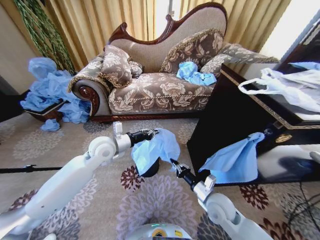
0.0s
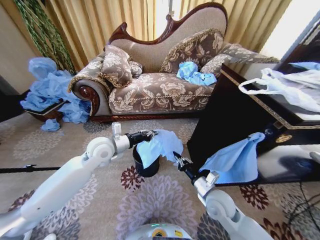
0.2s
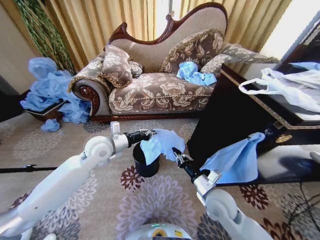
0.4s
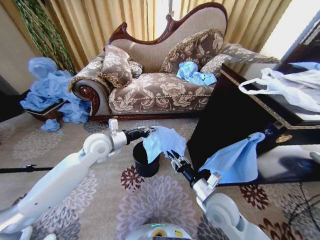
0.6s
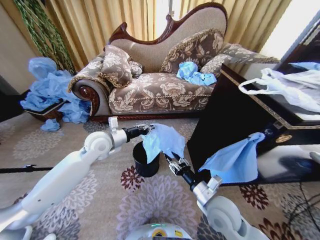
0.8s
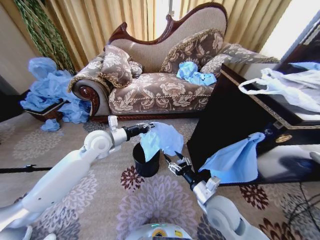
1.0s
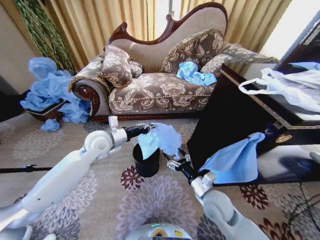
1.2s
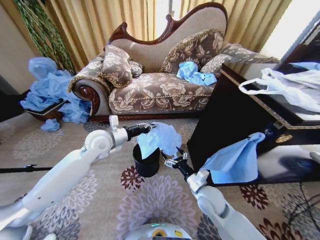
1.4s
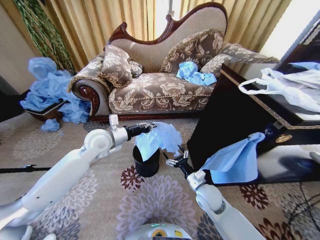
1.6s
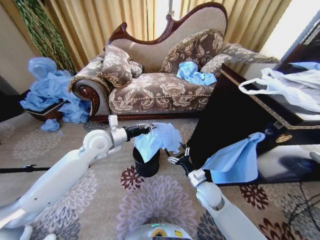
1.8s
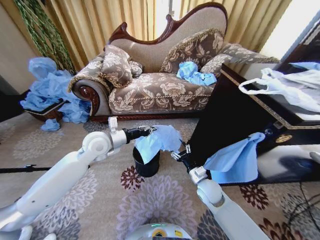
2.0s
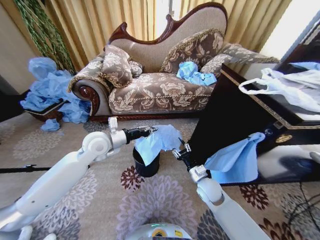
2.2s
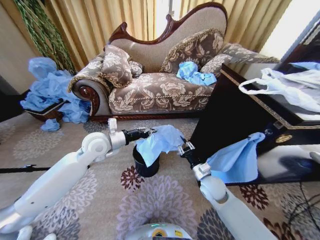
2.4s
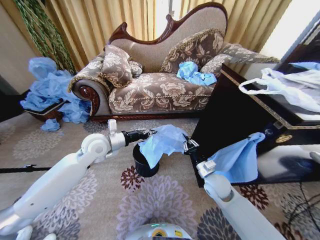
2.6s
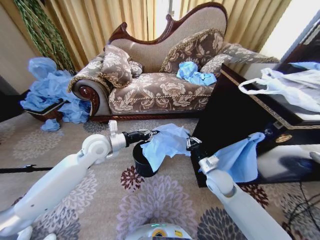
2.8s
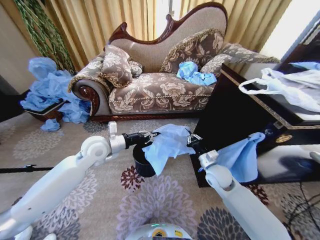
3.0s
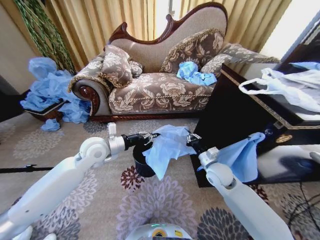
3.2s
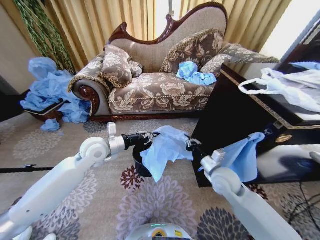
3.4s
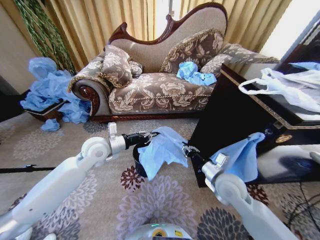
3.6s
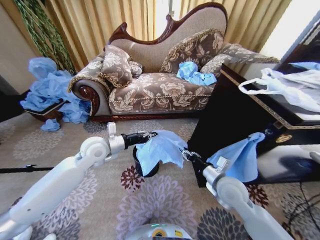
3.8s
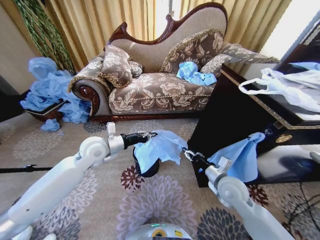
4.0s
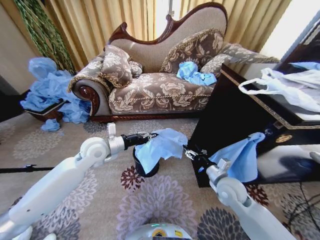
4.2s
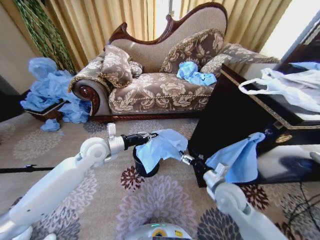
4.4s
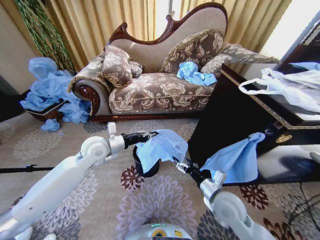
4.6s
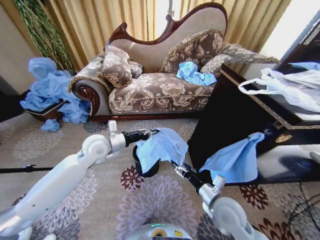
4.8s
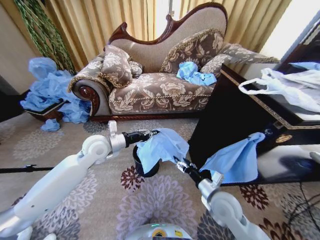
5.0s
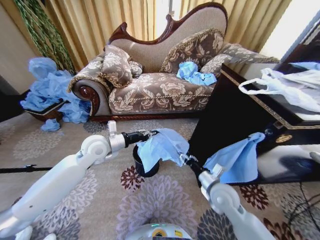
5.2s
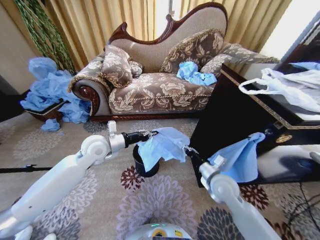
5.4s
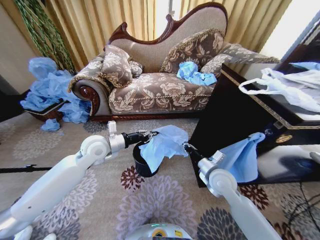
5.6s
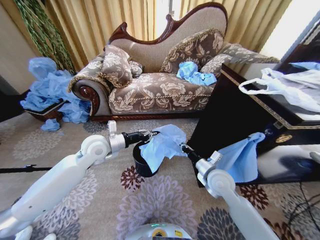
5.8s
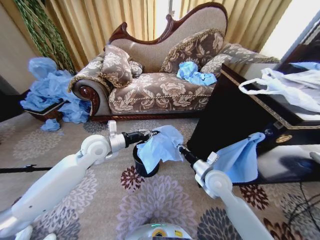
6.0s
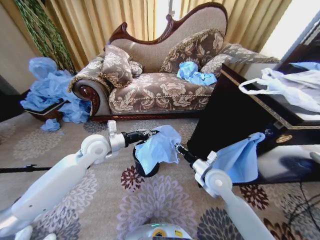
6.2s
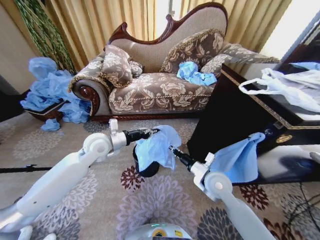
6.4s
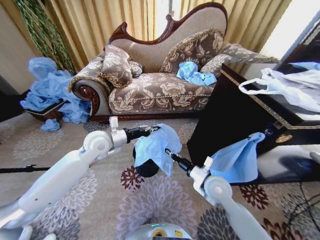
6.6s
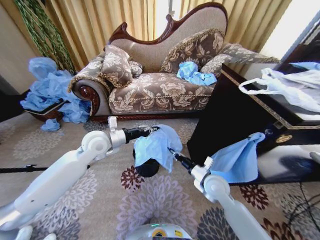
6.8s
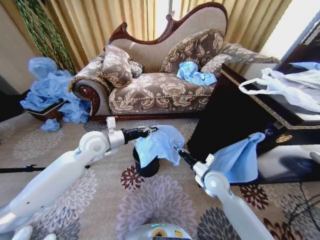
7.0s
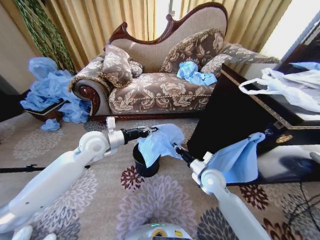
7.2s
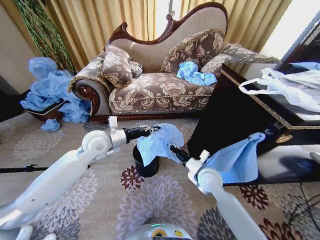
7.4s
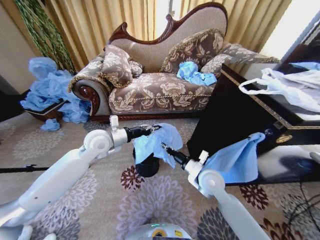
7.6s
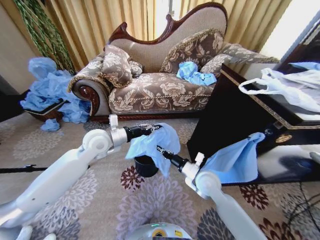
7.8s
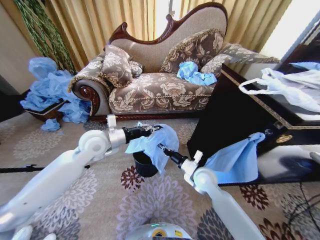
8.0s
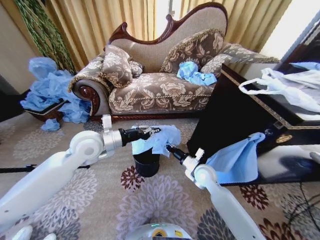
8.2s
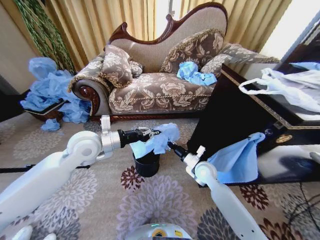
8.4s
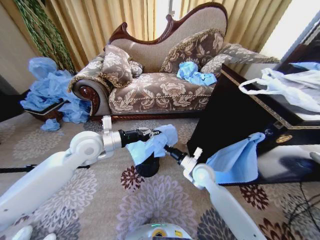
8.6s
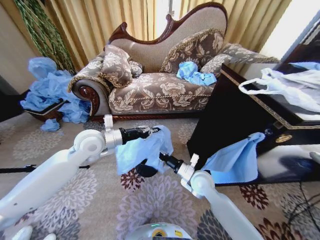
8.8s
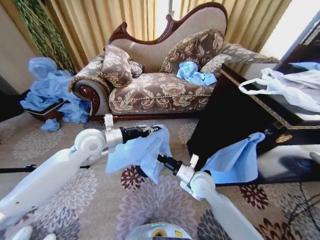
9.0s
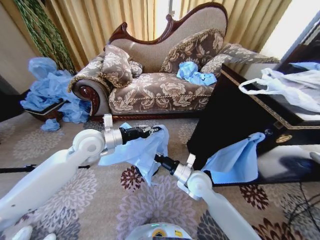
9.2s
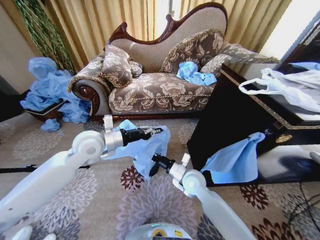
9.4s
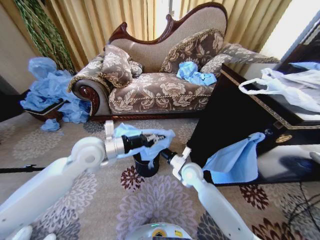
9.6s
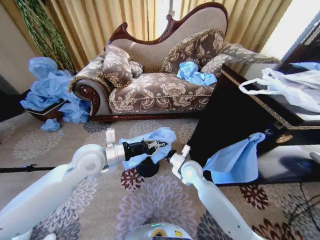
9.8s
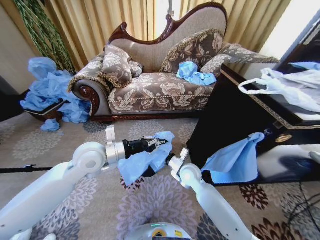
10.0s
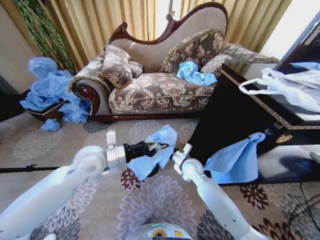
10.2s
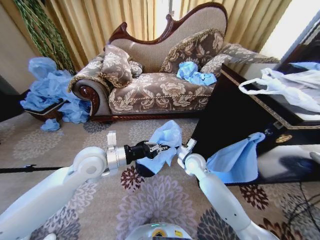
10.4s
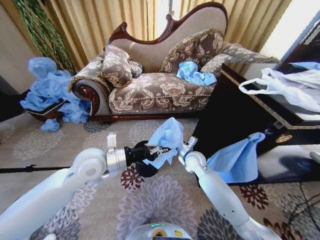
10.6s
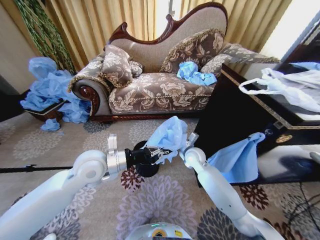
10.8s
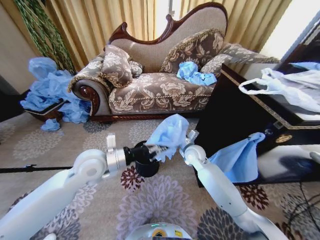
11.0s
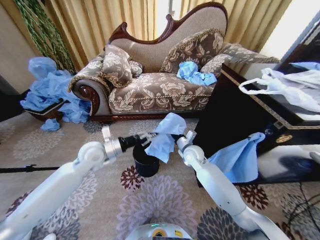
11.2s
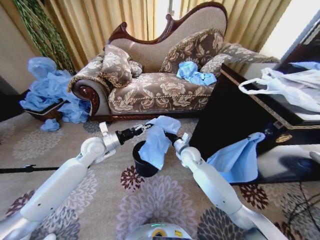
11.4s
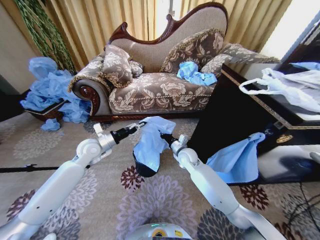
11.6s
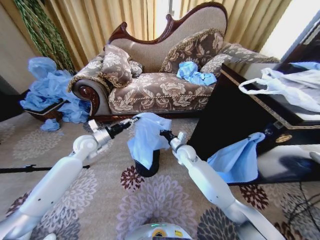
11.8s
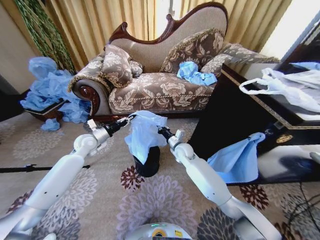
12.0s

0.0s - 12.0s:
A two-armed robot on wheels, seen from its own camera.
Task of the whole recording: Place a garbage bag over the trash bin.
0.0s - 1.6s: The right gripper opens up.
1.6s - 3.0s: The right gripper moves forward and upward, about 10 cm, and closes its fingers.
3.0s - 4.4s: The right gripper heads backward, covering roughly 10 cm, and opens up.
4.4s - 6.0s: The right gripper moves about 5 cm, and closes its fingers.
6.0s - 7.6s: The grippers make only small movements.
9.0s - 10.4s: The left gripper goes some 5 cm backward; the right gripper shifts about 10 cm forward.
10.4s - 12.0s: The right gripper heads forward, covering approximately 5 cm. Meanwhile the left gripper is displaced forward, to the left and downward by approximately 20 cm.

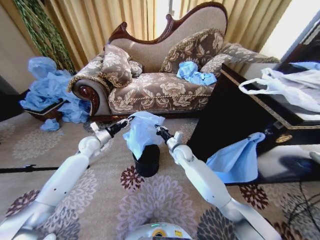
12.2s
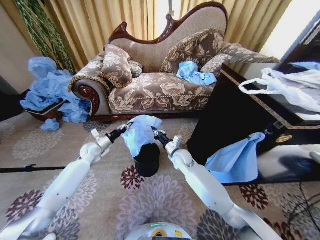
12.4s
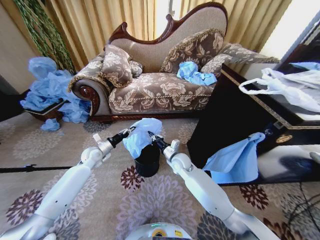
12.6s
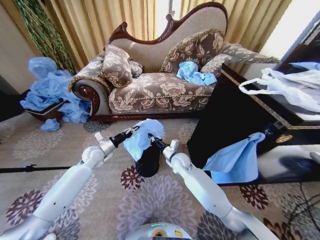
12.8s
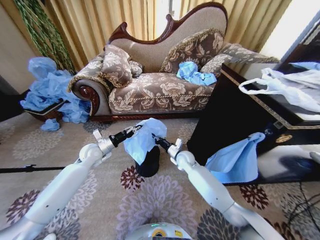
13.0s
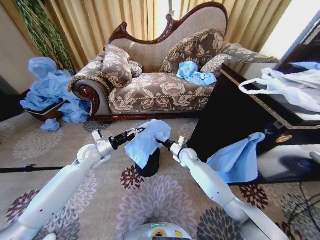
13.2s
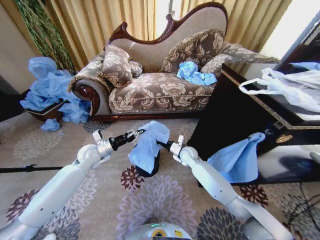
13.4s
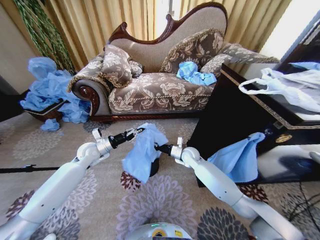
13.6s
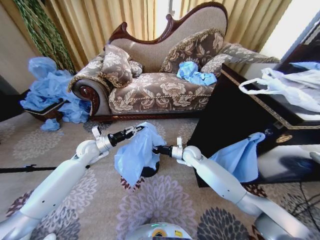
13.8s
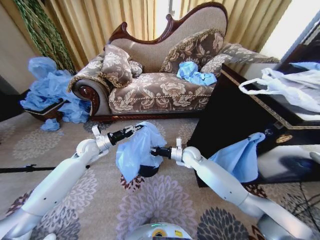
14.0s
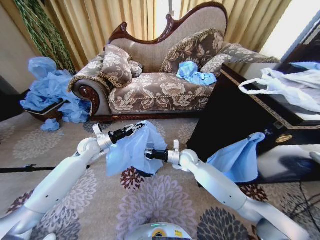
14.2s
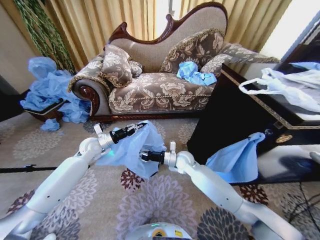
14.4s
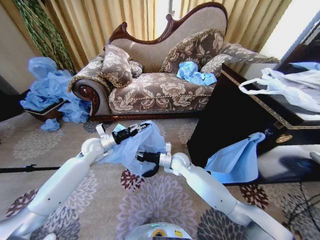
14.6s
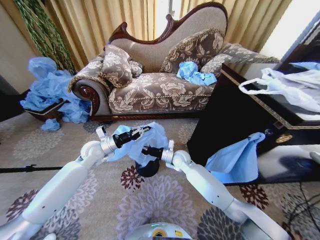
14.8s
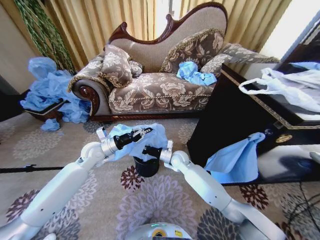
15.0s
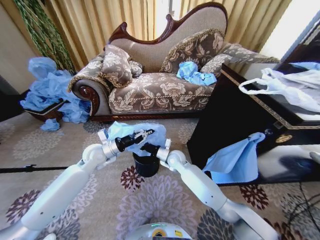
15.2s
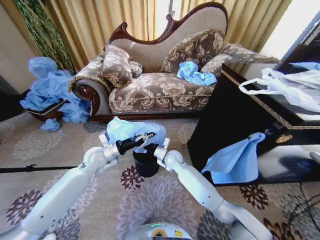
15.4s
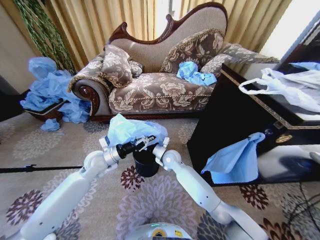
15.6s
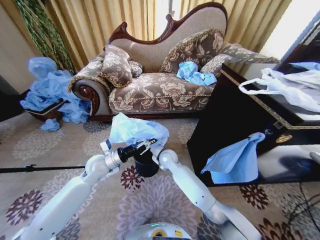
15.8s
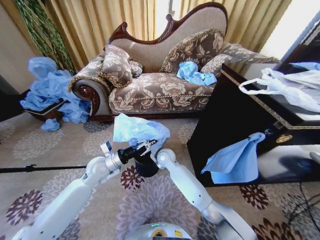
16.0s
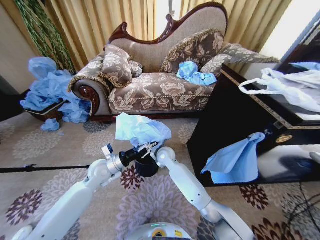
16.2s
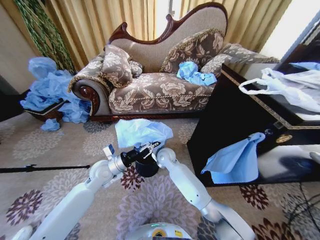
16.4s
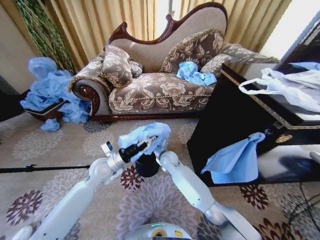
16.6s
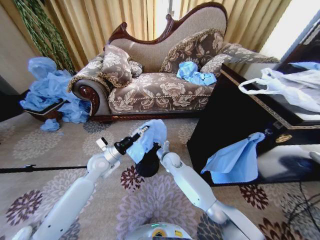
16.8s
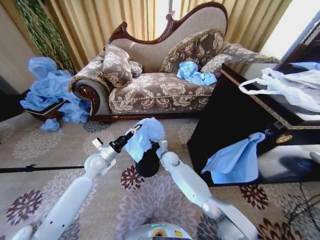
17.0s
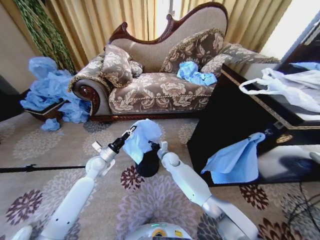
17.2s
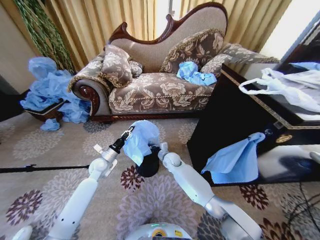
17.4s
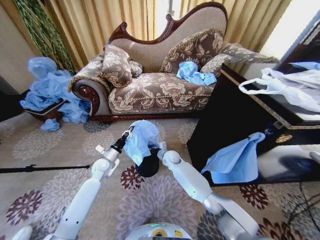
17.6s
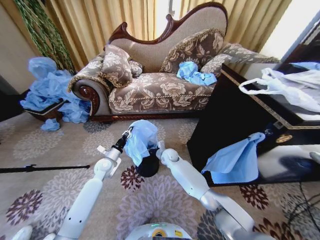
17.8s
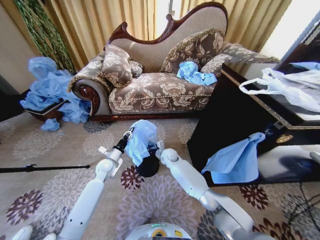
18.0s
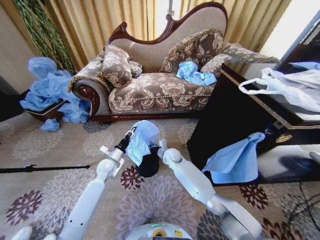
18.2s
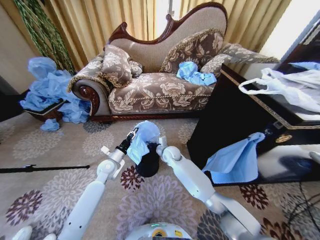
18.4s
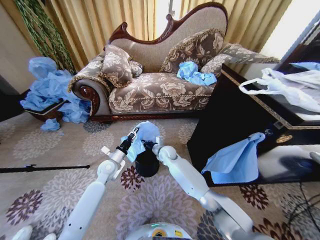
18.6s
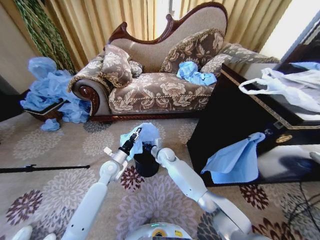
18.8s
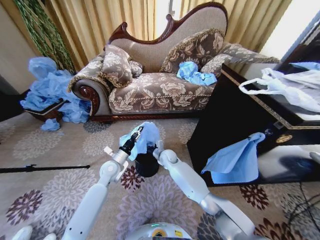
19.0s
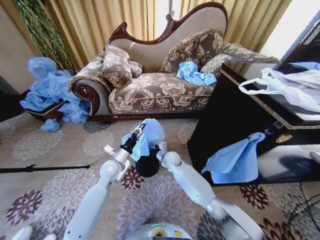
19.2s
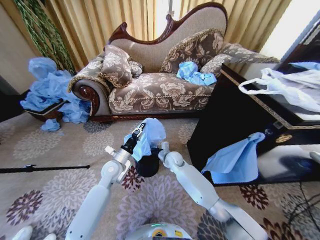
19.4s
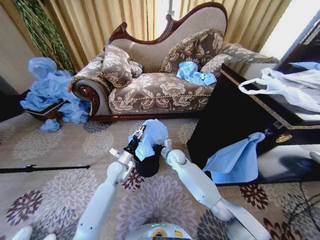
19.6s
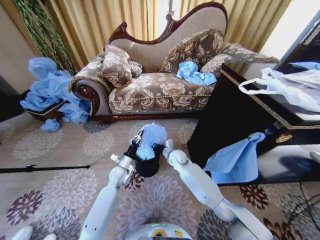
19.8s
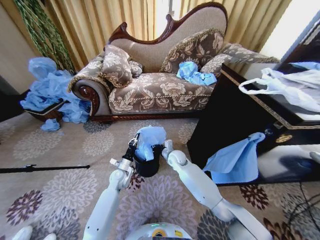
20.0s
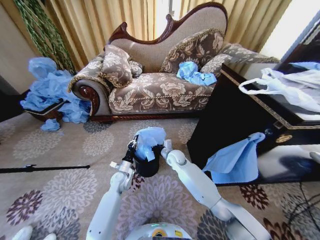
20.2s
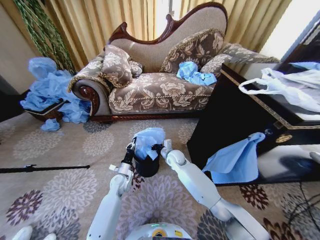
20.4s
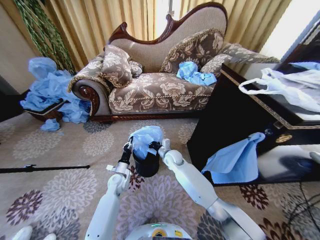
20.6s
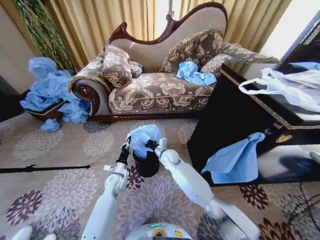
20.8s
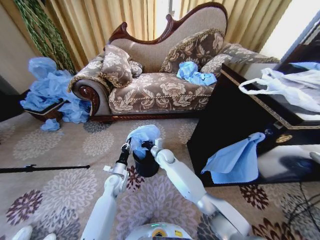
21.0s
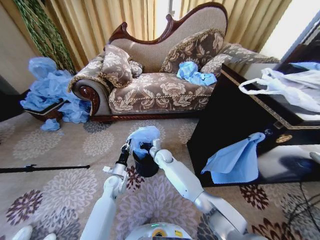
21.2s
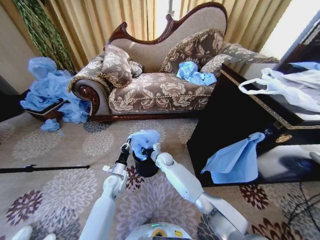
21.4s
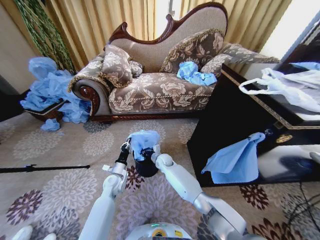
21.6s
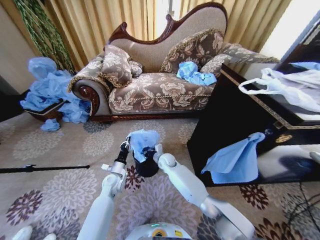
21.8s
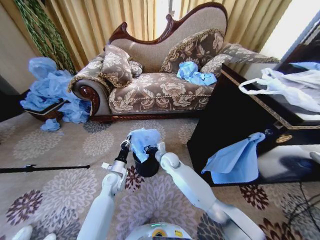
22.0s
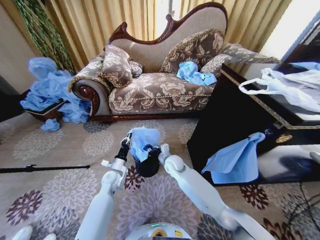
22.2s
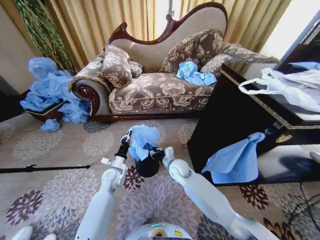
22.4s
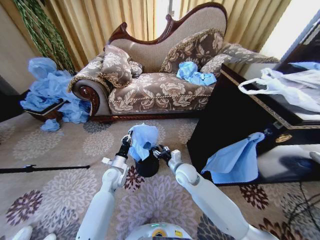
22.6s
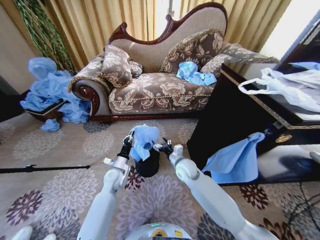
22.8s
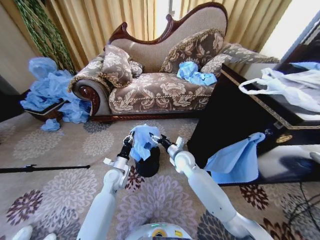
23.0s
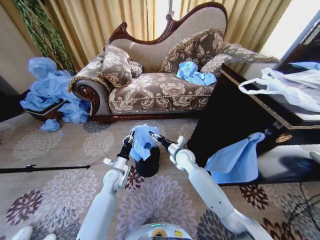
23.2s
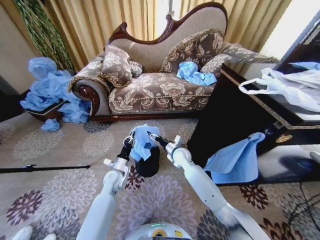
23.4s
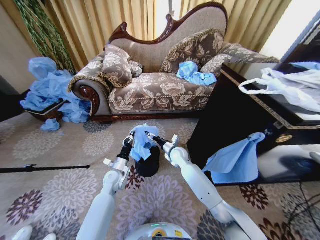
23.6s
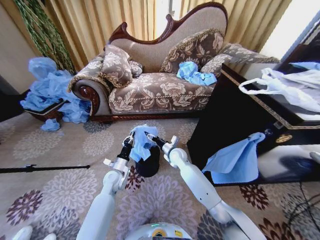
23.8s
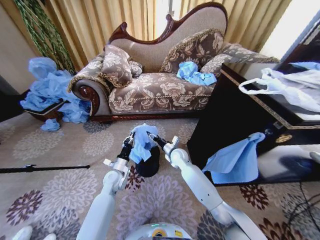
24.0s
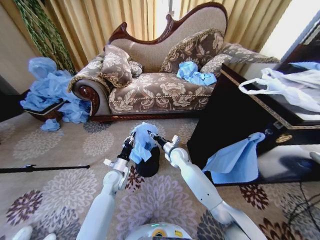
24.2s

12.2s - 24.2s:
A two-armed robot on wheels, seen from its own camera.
Task of the whole recording: Place a garbage bag over the trash bin.
12.2s - 13.8s: The right gripper goes roughly 5 cm to the right.
13.8s - 15.2s: The right gripper shifts approximately 10 cm to the left, while the left gripper heads to the right, covering some 5 cm.
15.2s - 16.6s: The left gripper changes place by approximately 5 cm.
16.6s - 18.2s: The left gripper goes about 10 cm downward.
18.2s - 19.8s: The left gripper is displaced downward by approximately 5 cm. The right gripper opens and closes again.
19.8s - 21.2s: The right gripper travels to the left by approximately 10 cm.
21.2s - 22.6s: The left gripper goes some 5 cm upward. The right gripper goes roughly 15 cm backward and to the right, and opens up.
22.6s - 24.2s: The right gripper moves forward, roughly 10 cm, and opens, then closes once more.
